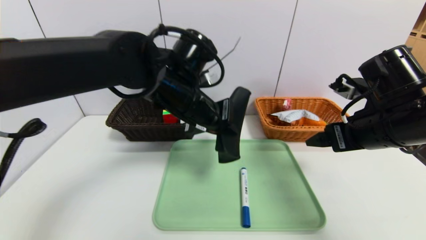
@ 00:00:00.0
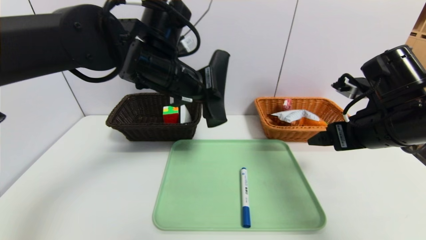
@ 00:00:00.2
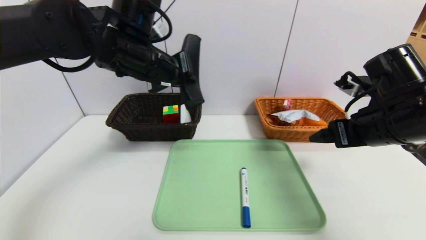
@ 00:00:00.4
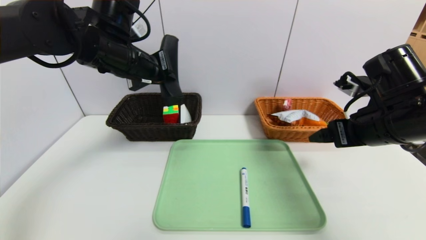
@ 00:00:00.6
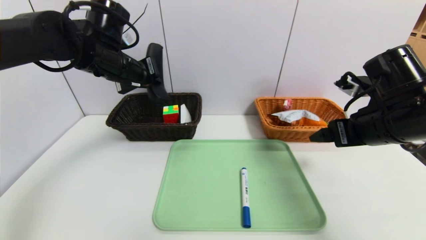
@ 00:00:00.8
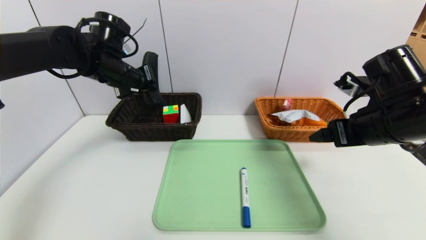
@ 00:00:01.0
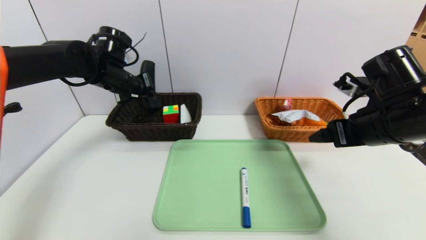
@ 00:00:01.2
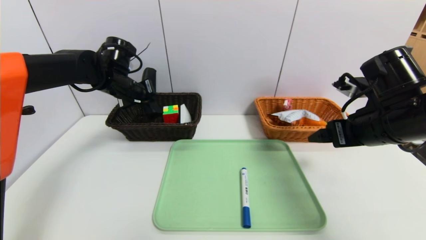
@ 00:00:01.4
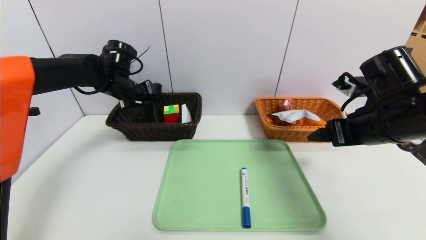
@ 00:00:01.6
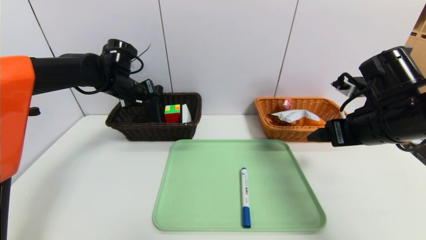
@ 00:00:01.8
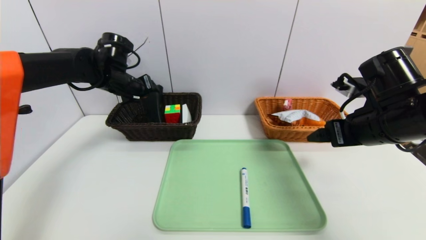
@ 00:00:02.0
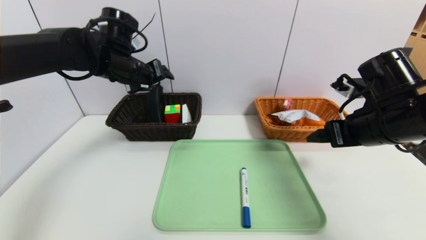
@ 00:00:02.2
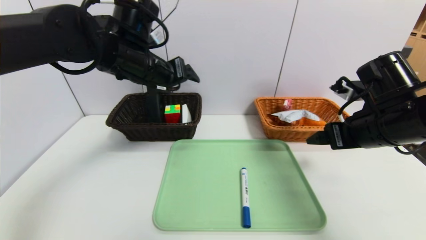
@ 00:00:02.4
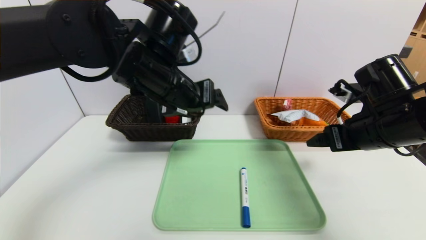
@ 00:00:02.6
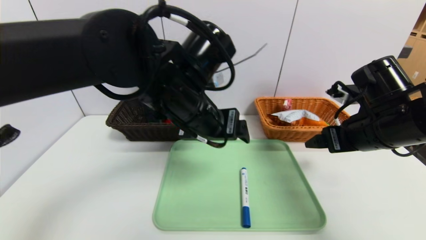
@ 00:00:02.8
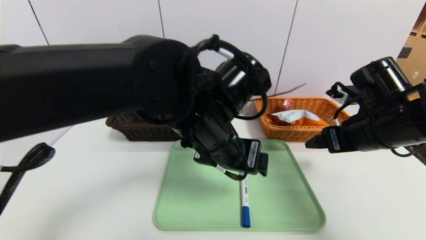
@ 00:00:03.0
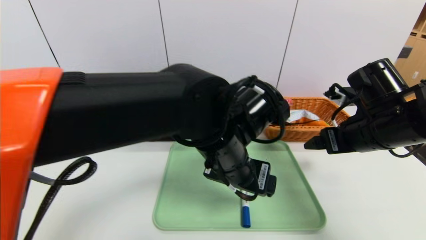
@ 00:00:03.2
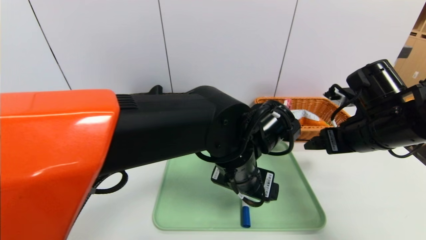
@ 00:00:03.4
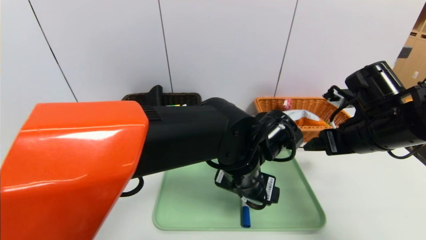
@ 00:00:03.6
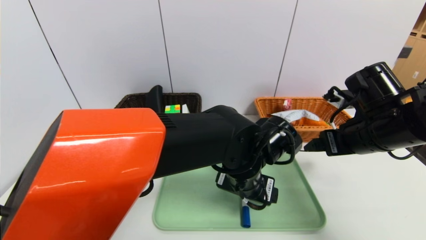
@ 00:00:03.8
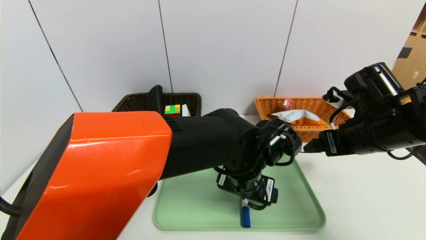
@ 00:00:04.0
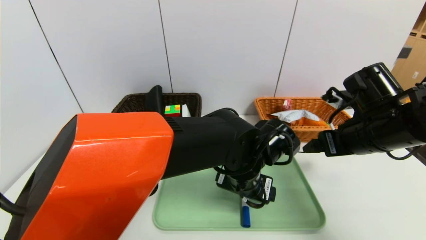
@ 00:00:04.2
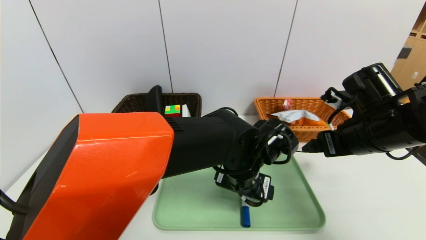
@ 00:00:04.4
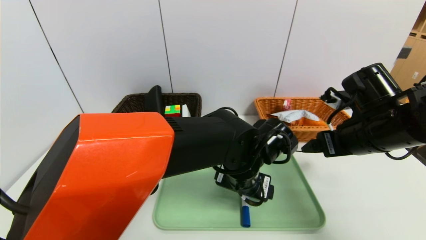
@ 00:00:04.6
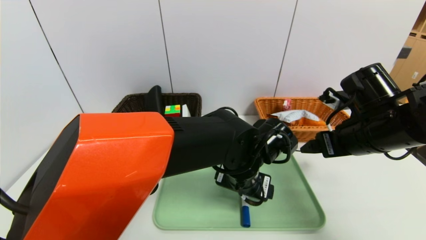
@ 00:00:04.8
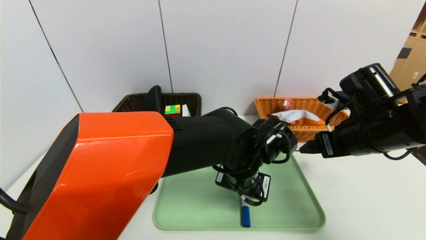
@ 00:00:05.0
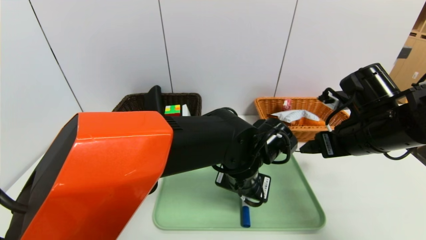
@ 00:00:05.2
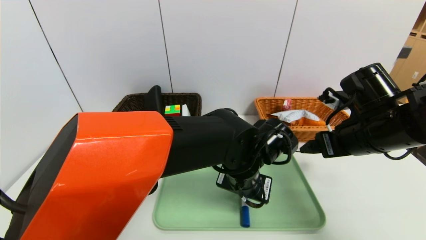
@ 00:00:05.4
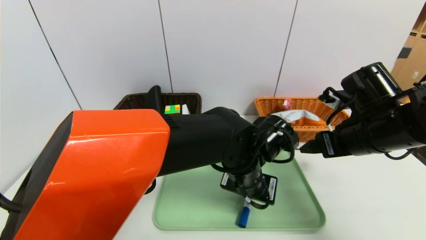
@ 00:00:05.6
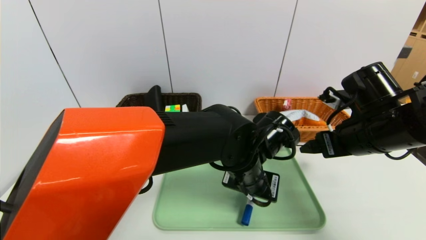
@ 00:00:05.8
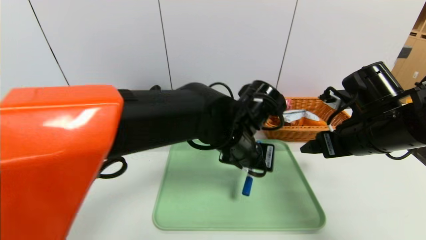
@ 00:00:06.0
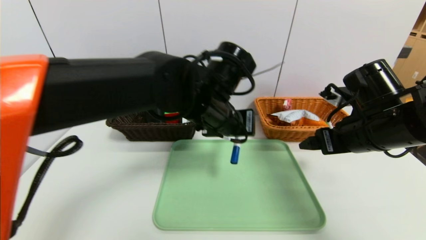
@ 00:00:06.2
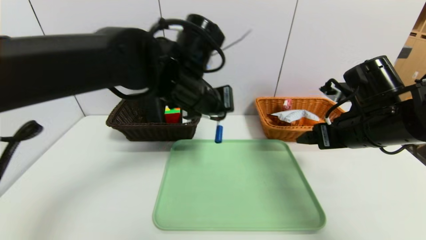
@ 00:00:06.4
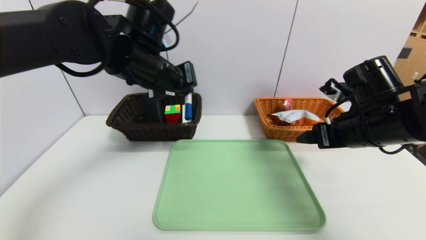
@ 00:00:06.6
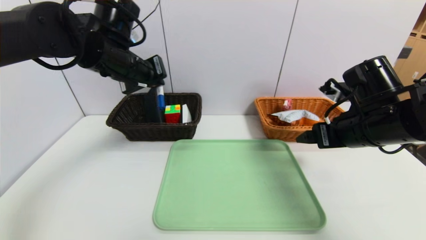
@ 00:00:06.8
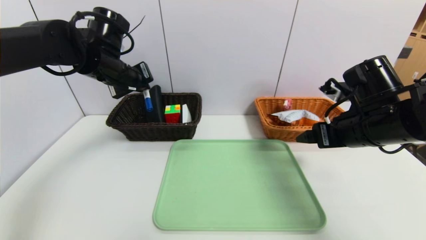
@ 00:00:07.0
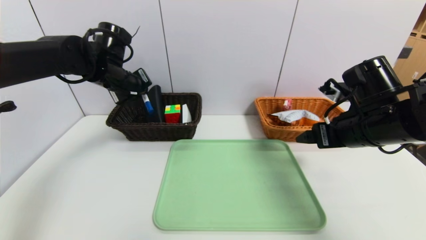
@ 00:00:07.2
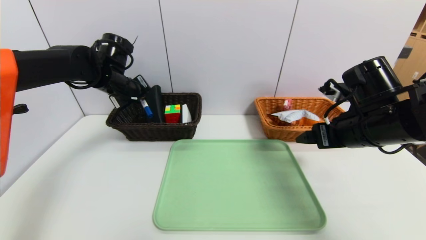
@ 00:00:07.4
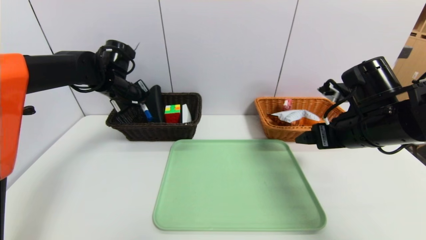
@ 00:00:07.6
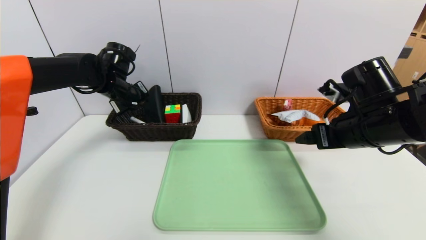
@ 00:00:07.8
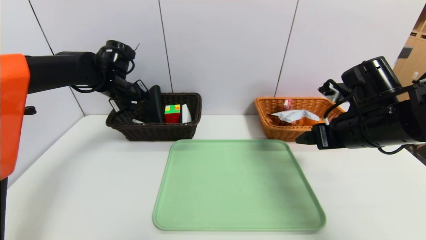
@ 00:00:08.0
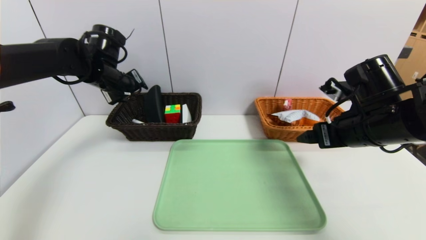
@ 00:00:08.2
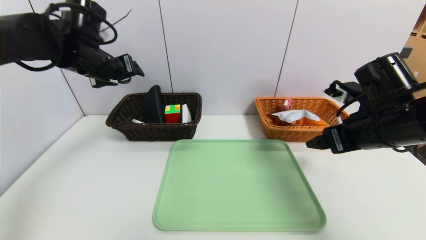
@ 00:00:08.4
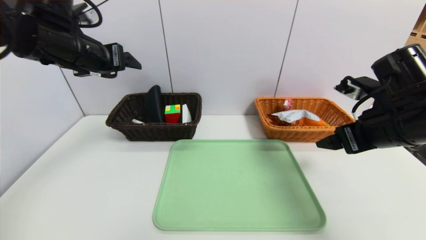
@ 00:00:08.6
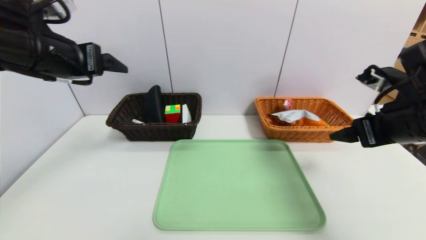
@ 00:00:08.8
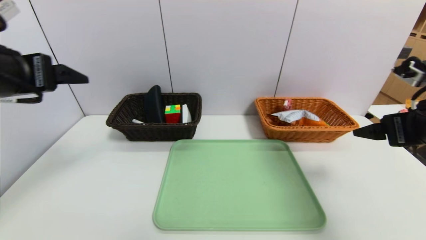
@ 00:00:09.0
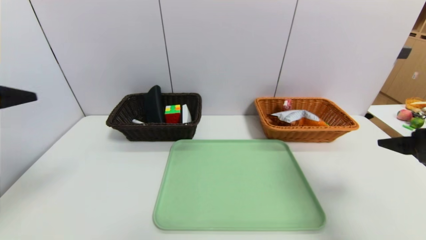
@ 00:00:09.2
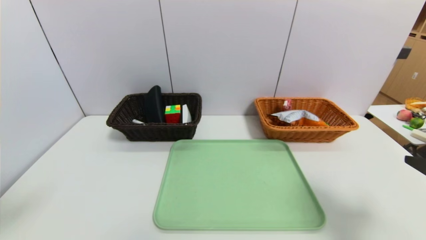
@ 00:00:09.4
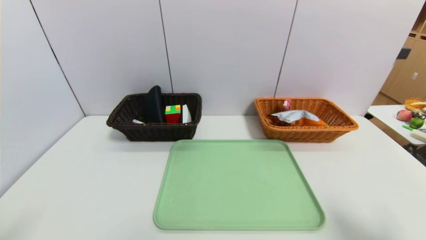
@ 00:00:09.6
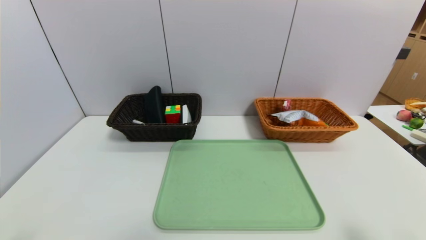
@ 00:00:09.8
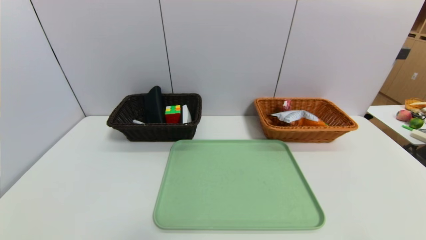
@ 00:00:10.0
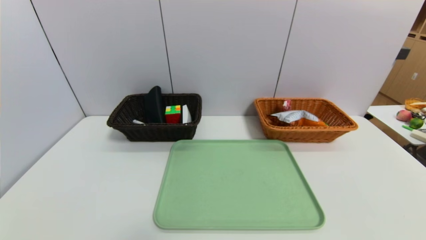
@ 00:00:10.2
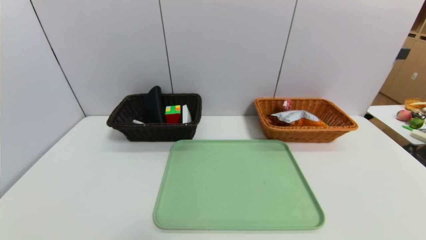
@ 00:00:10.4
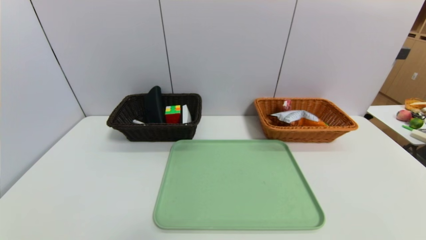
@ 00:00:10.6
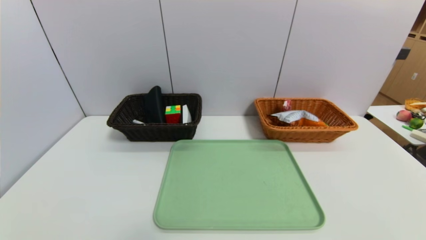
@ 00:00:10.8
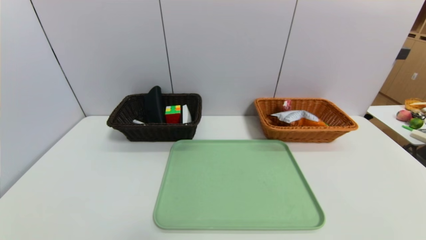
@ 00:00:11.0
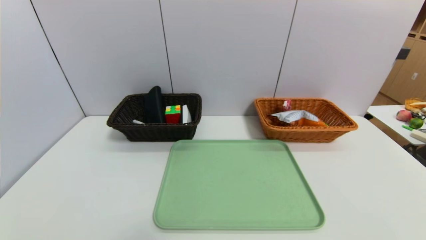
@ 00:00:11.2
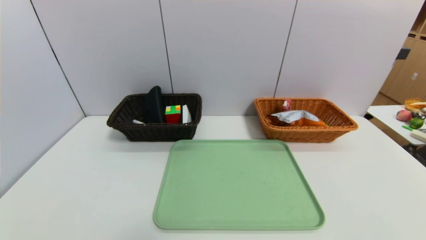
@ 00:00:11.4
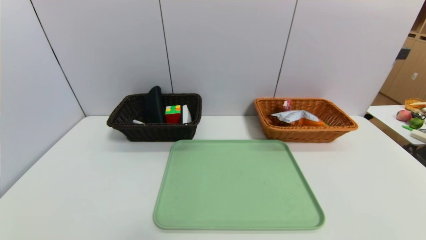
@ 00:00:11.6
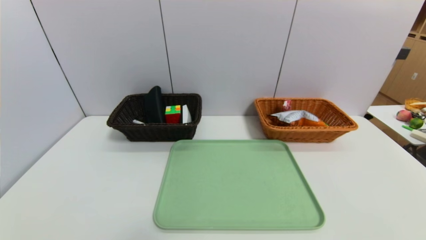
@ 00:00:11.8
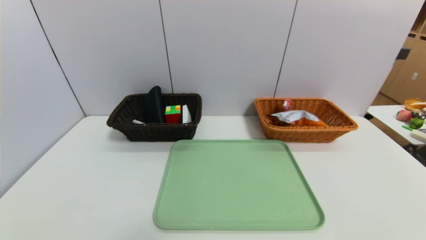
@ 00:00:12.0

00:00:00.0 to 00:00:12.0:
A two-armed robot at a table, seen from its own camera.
Task of the whole recording: place the food in the right basket with the right gripper, and place the non food items in the left basket with the left gripper.
Step, 00:00:00.0 to 00:00:02.2: Grasp the glasses case and put it in the left basket.
Step, 00:00:02.4 to 00:00:08.8: Grasp the blue marker and put it in the left basket.
00:00:00.0 to 00:00:01.6: The left gripper goes some 20 cm to the left and forward.
00:00:01.6 to 00:00:03.0: The left gripper is displaced to the right and backward by approximately 30 cm, and opens its fingers.
00:00:03.0 to 00:00:04.4: The left gripper moves downward and to the right, about 10 cm.
00:00:04.4 to 00:00:06.0: The left gripper moves upward, some 5 cm, and closes.
00:00:06.0 to 00:00:07.6: The left gripper is displaced to the left and forward by some 30 cm.
00:00:07.6 to 00:00:09.0: The right gripper heads backward and to the right, covering roughly 10 cm. Meanwhile the left gripper shifts roughly 25 cm backward and upward, and opens up.
00:00:09.0 to 00:00:10.4: The left gripper is displaced downward and backward by approximately 30 cm. Meanwhile the right gripper goes roughly 30 cm backward and downward.

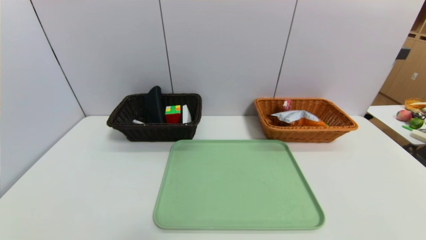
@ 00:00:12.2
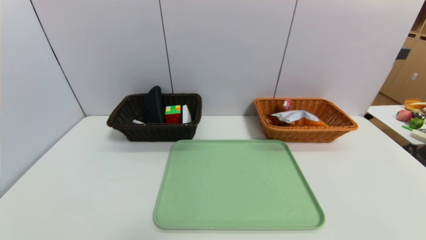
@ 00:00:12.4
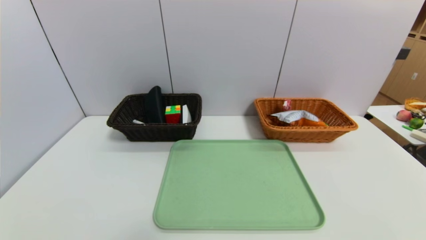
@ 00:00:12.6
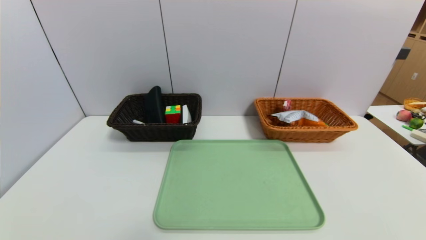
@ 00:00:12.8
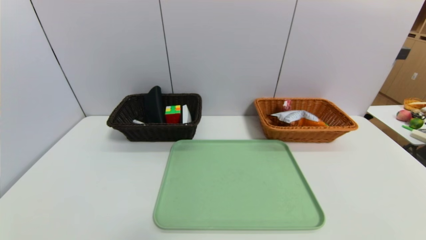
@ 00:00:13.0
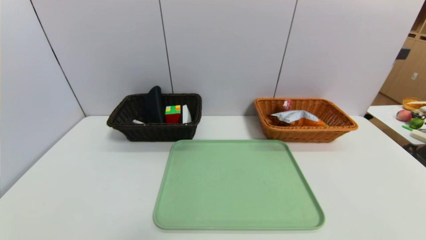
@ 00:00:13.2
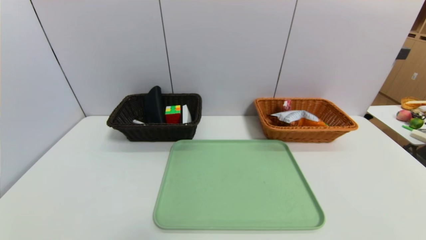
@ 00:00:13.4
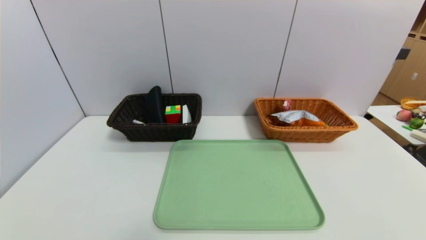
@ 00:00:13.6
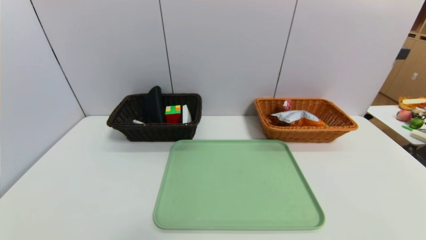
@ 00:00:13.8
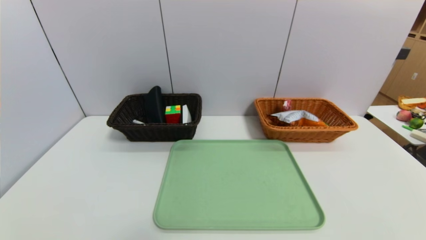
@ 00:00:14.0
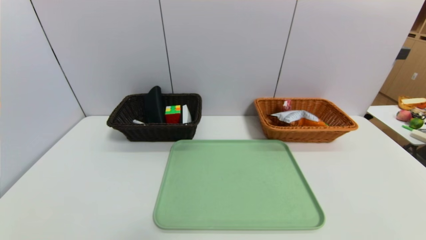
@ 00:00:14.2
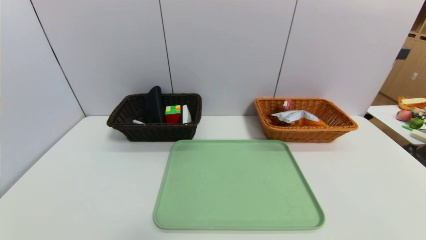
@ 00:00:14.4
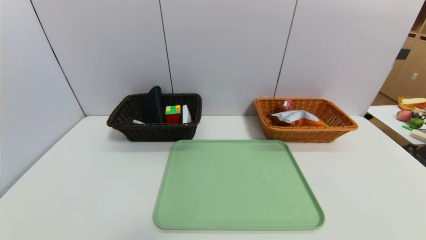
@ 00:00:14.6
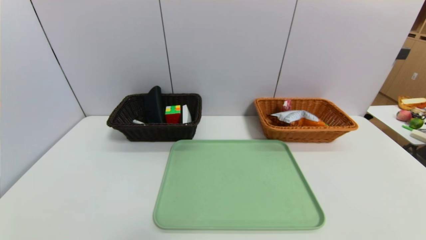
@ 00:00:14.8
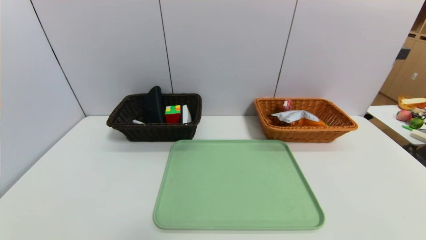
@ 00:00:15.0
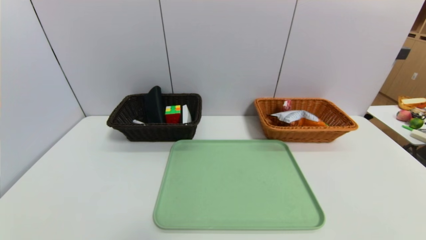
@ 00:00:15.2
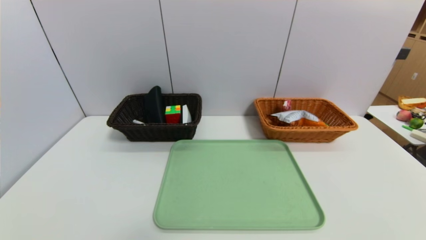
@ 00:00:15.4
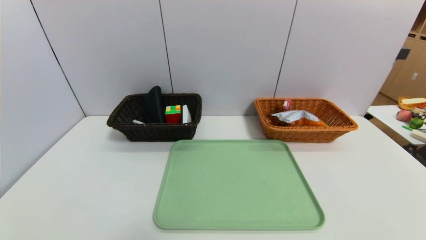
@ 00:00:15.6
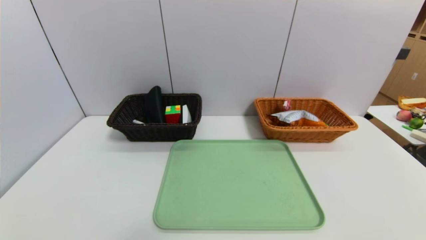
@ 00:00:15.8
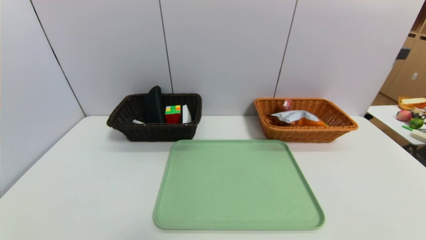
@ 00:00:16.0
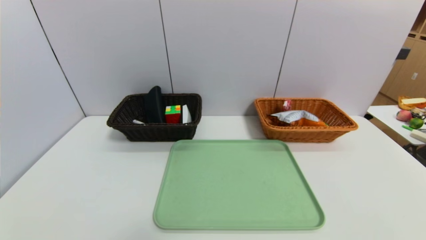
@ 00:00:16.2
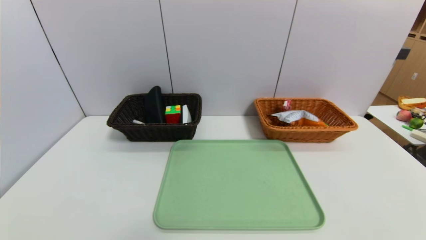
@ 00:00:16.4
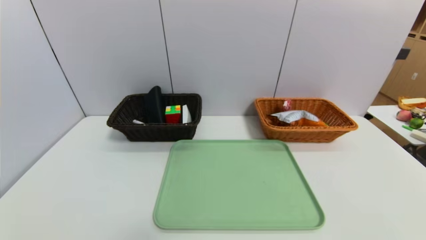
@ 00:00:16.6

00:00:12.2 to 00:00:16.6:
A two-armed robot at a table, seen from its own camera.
Task of the whole recording: place the food in the right basket with the right gripper, and place the non food items in the left basket with the left gripper.
00:00:12.2 to 00:00:16.6: The two grippers keep their place.
